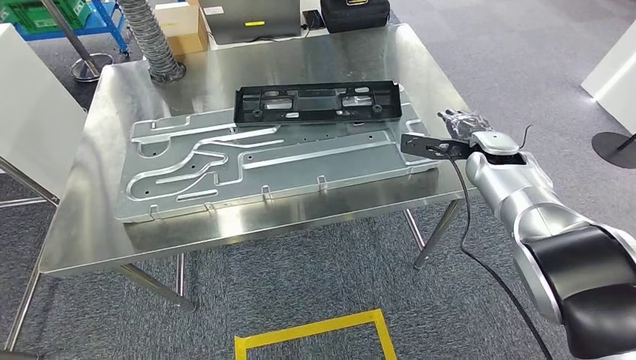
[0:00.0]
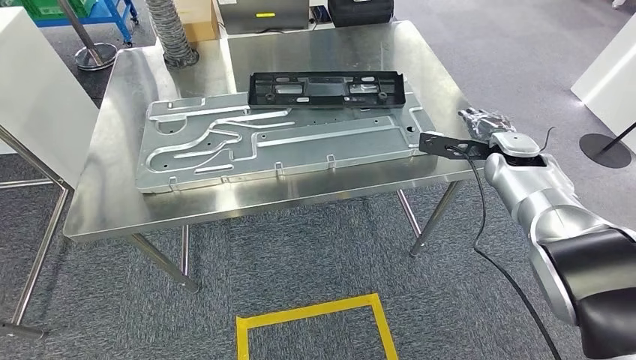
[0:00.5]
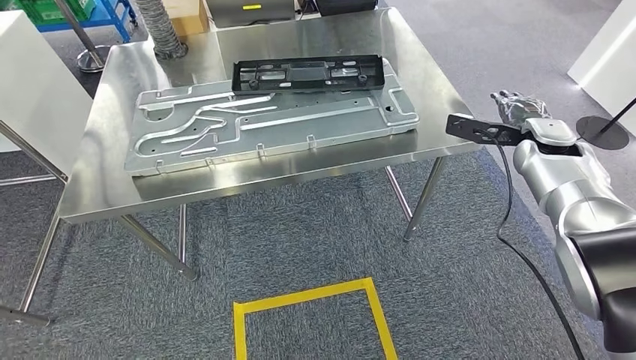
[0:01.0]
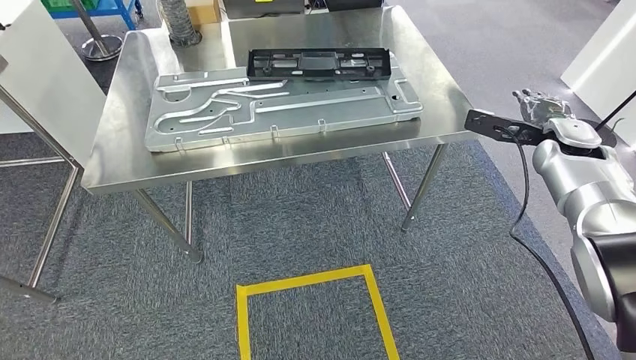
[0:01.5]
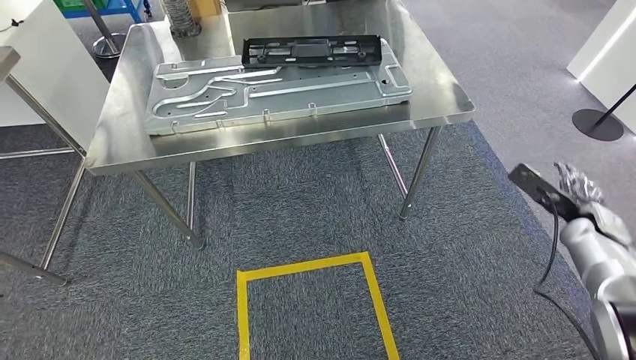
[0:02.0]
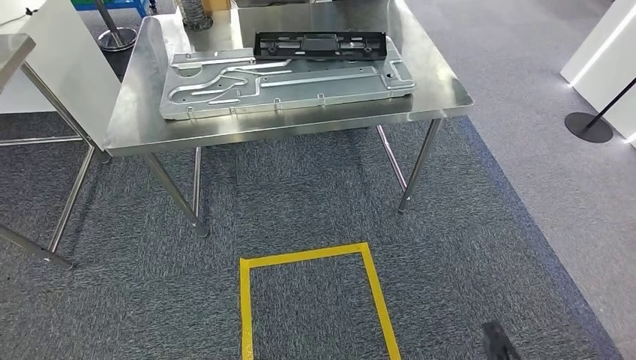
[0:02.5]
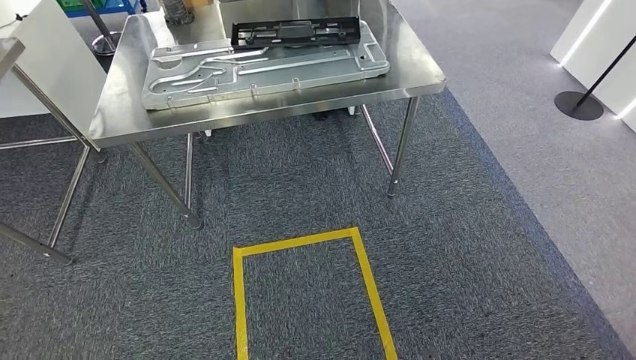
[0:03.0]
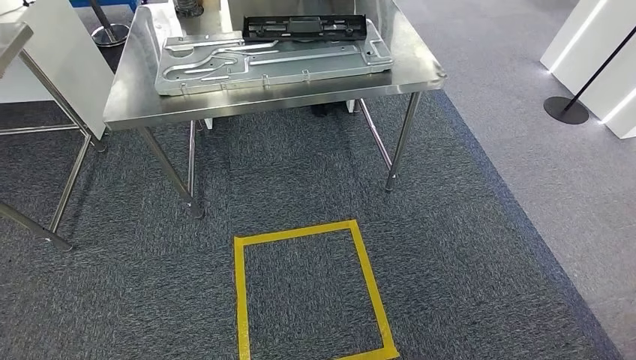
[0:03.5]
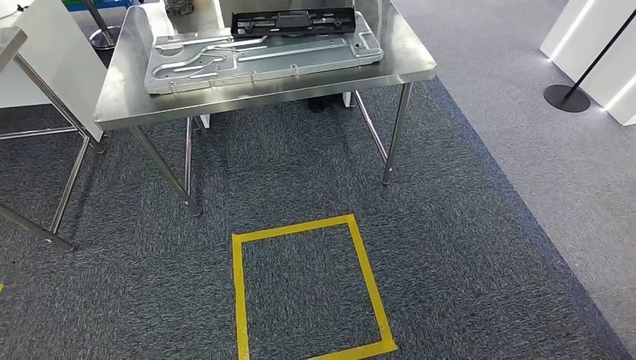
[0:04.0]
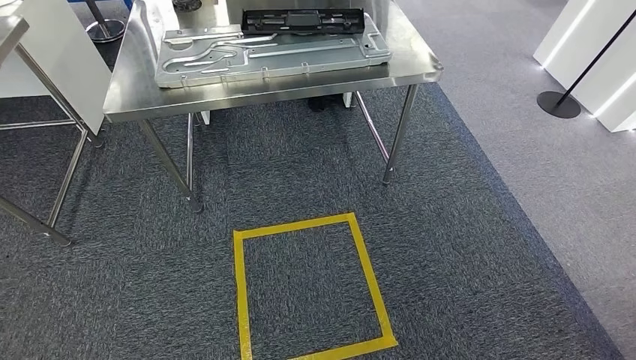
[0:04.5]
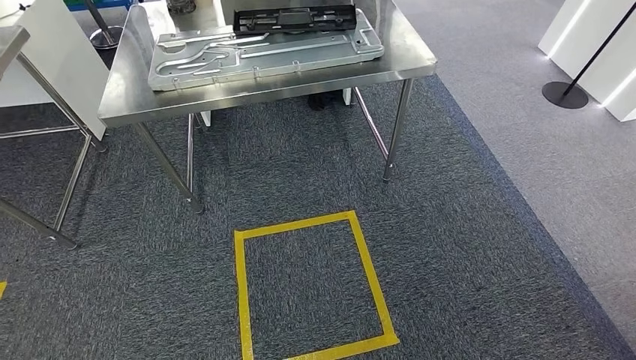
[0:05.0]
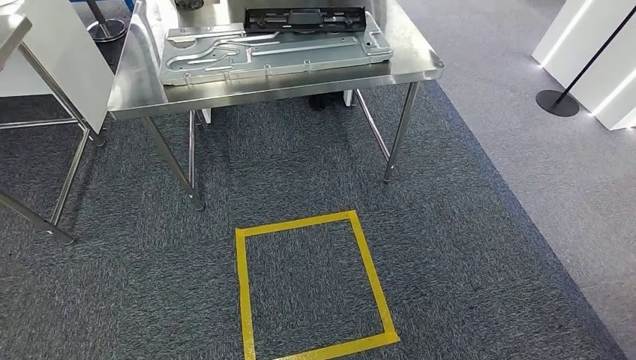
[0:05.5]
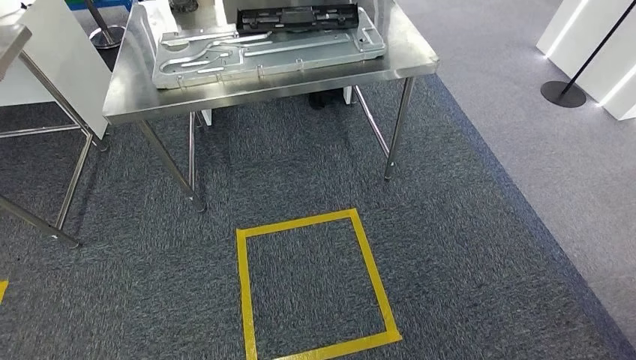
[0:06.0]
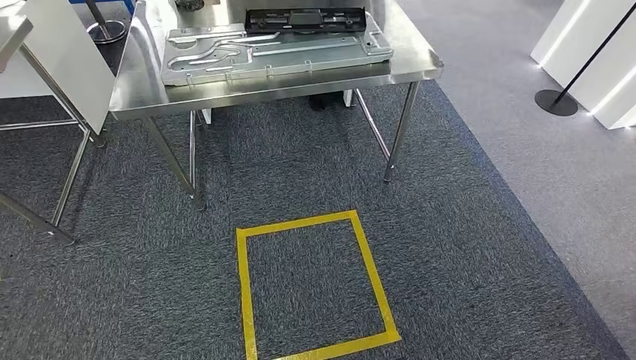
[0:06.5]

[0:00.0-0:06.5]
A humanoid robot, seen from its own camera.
Step, 0:00.0 to 0:06.0: Move to the initial position of the shelf.
0:04.5 to 0:06.5: The hands stay close to where they were, moving slightly.

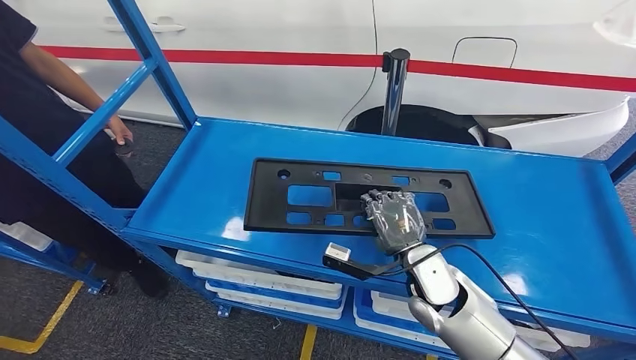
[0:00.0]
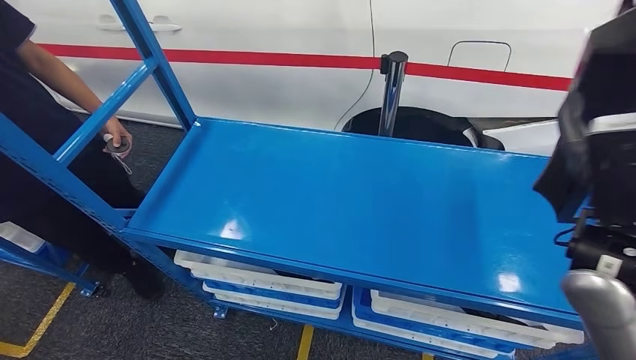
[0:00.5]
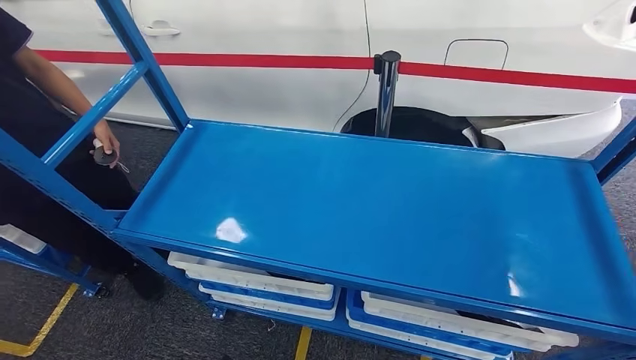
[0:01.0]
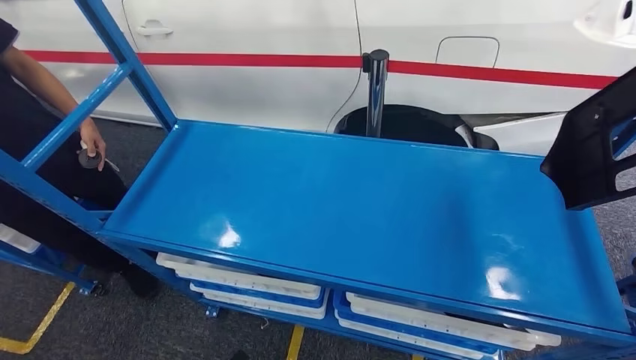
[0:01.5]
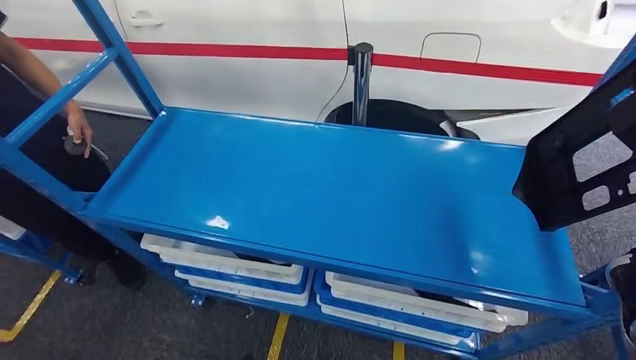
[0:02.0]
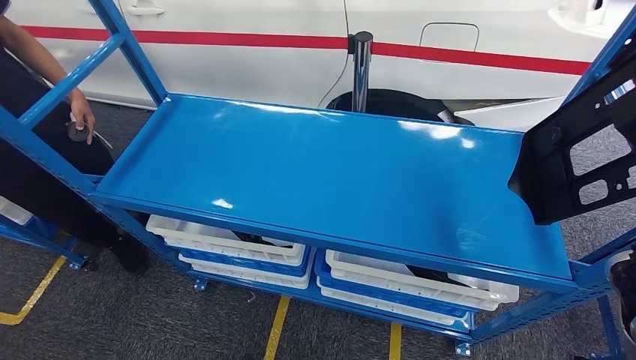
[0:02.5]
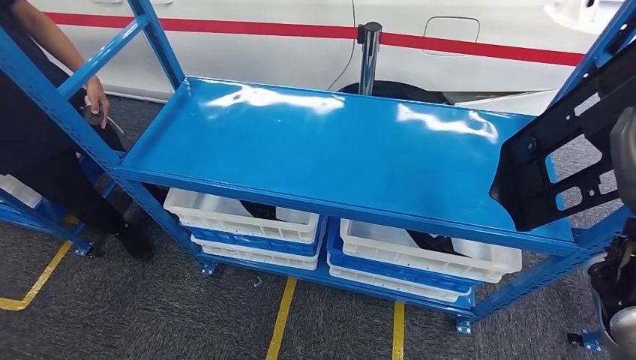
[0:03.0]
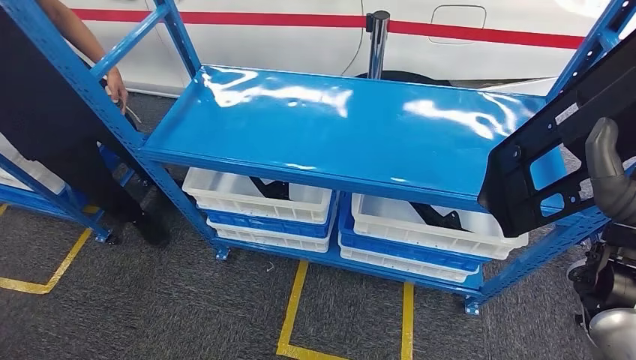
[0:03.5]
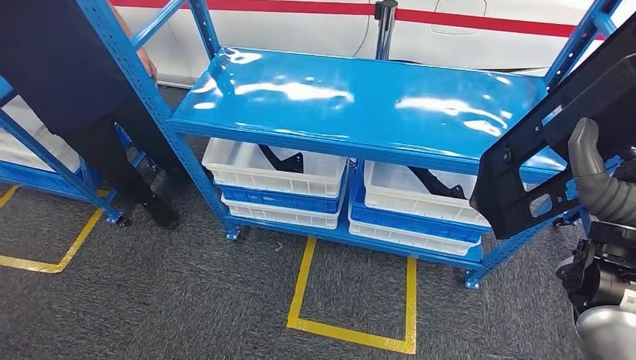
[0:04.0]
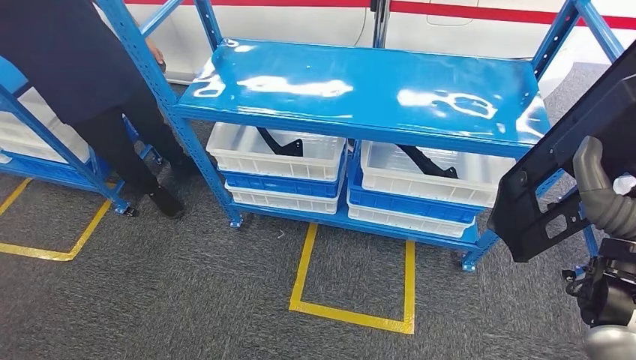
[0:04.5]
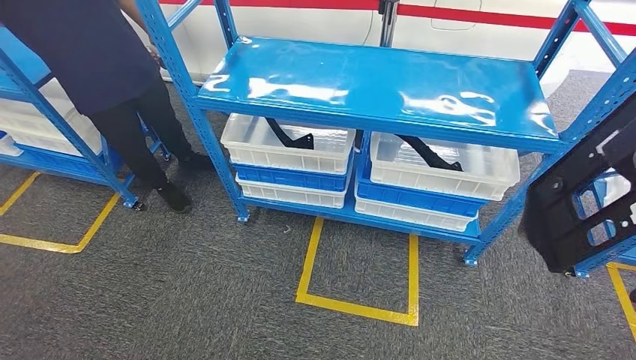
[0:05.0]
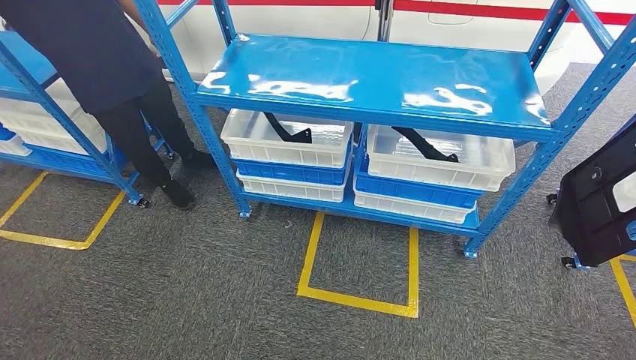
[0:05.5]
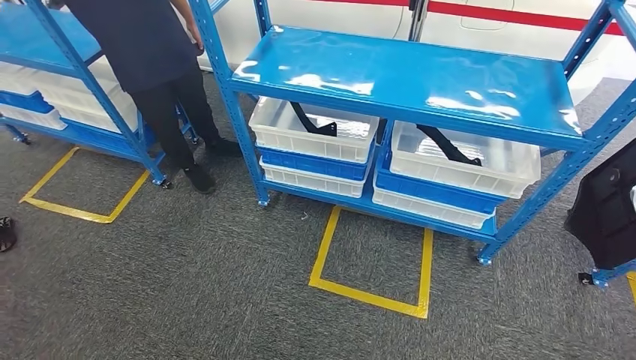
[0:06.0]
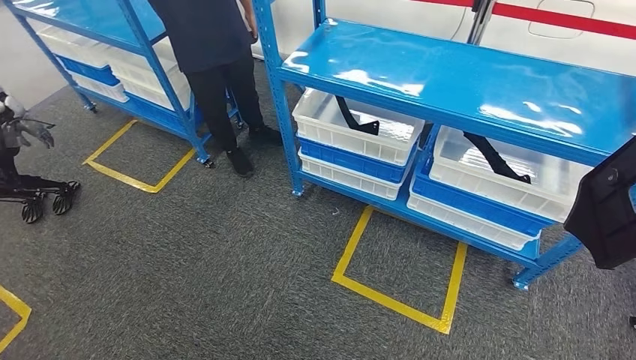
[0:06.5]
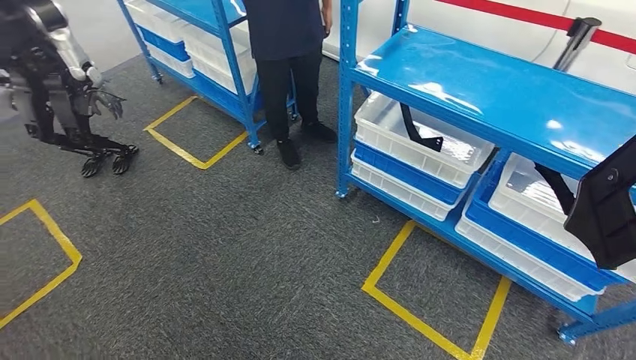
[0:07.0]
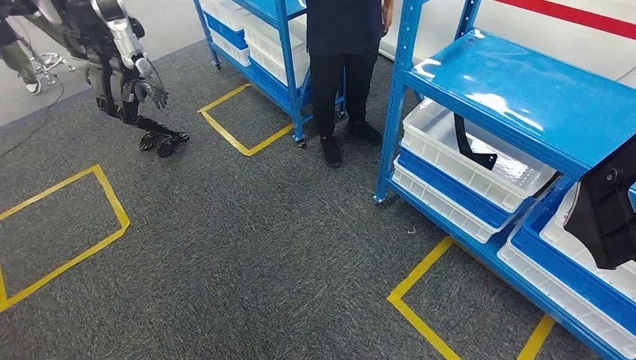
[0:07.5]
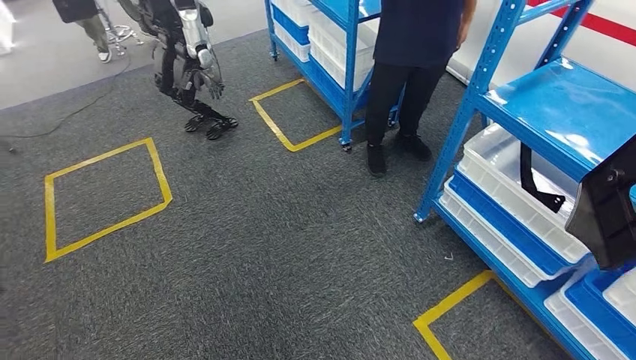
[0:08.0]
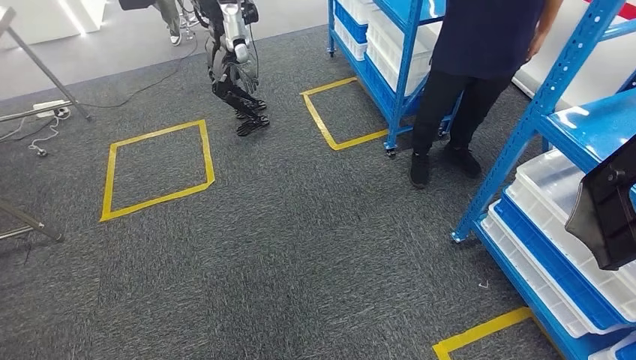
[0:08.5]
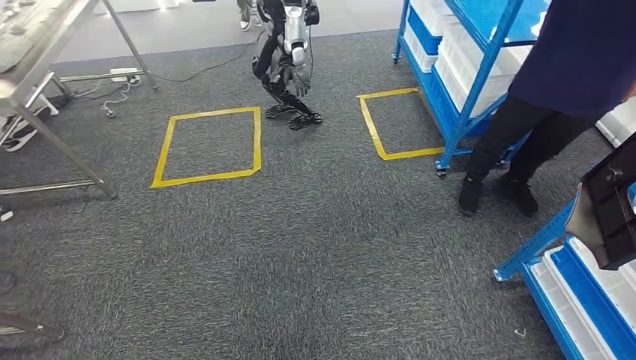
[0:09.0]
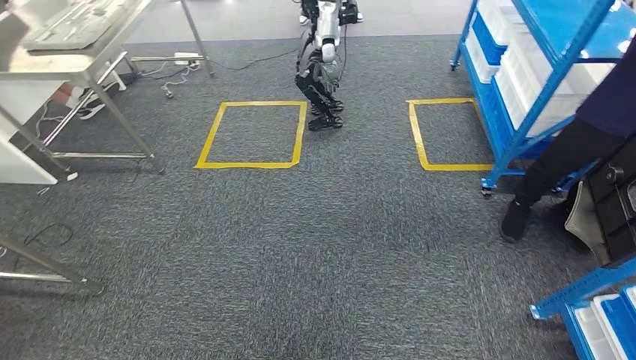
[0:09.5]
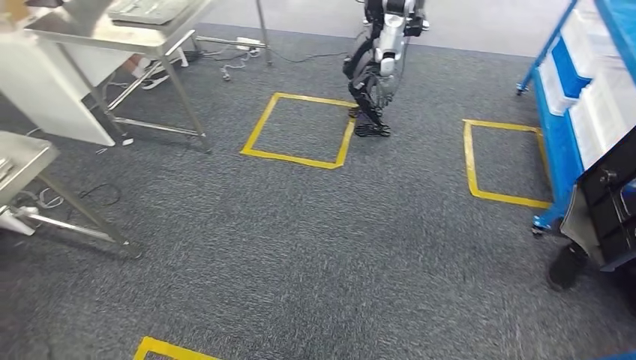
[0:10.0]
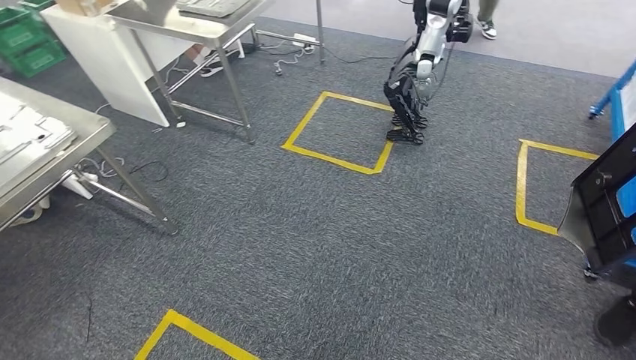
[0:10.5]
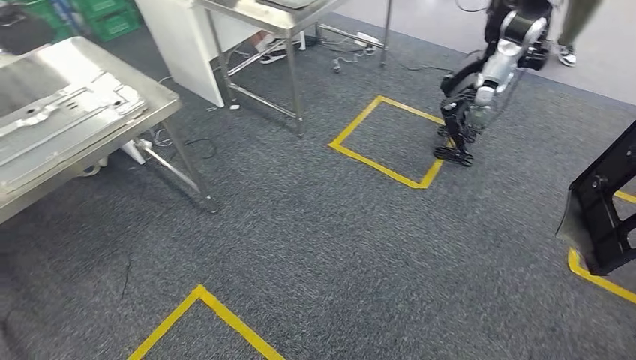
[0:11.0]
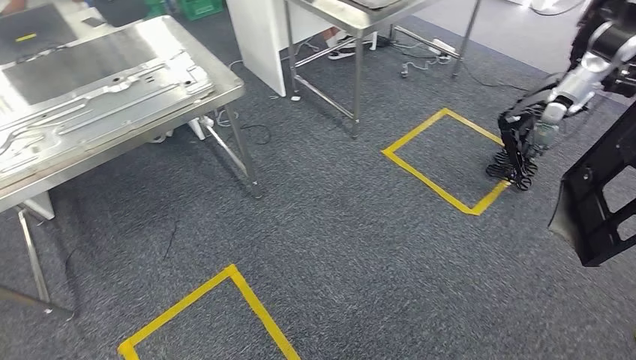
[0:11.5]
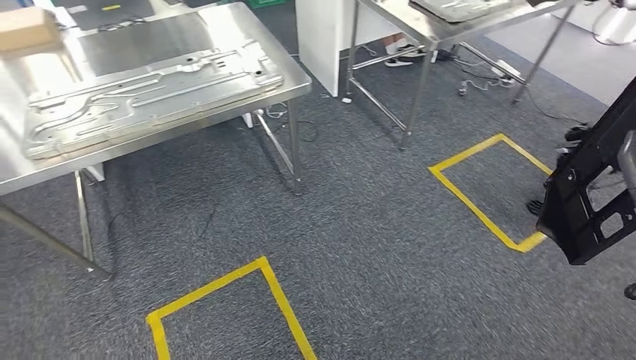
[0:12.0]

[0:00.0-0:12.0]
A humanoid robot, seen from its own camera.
Step, 0:00.0 to 0:02.5: Pick up the large material from the shelf.

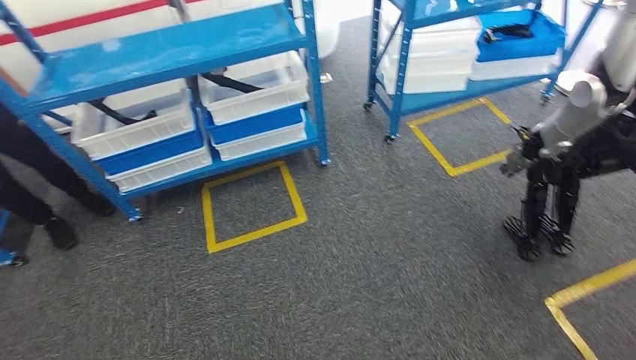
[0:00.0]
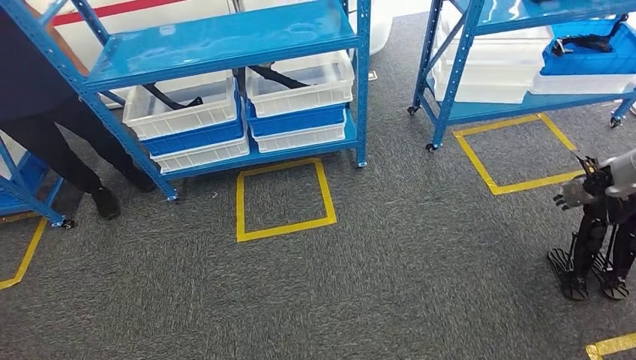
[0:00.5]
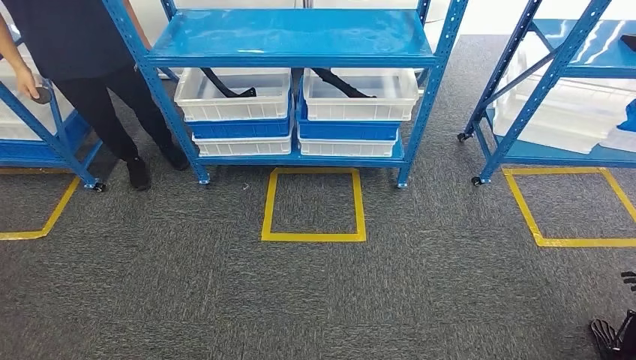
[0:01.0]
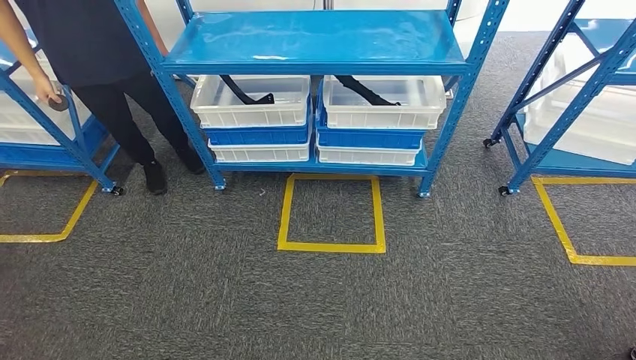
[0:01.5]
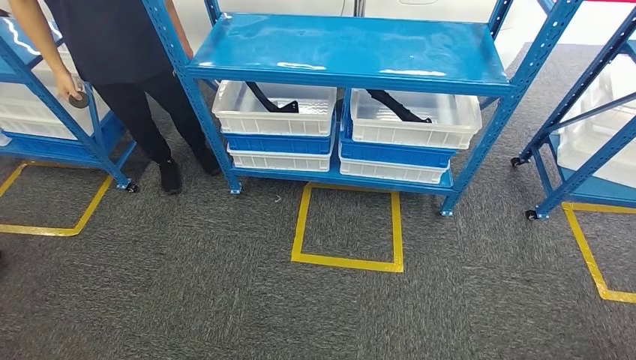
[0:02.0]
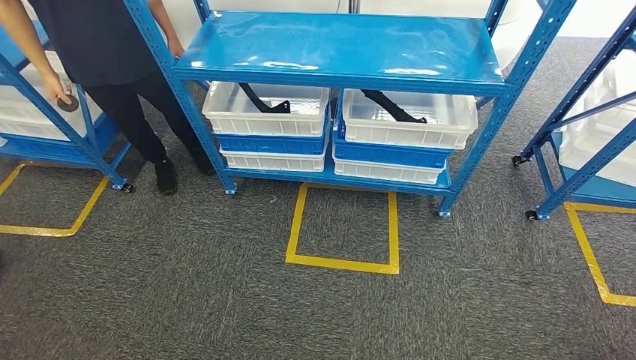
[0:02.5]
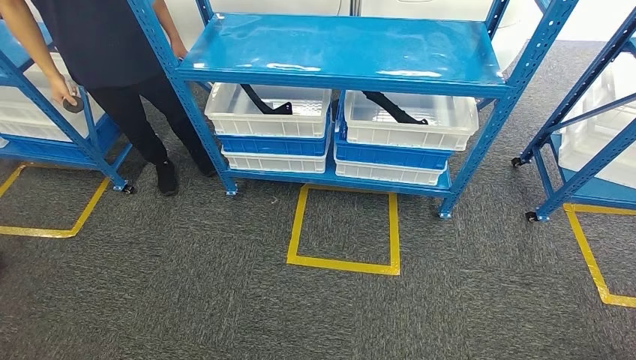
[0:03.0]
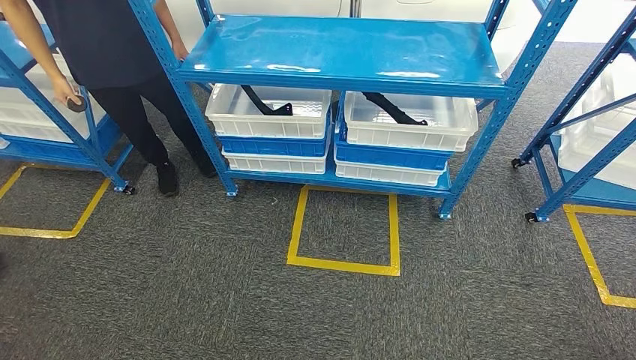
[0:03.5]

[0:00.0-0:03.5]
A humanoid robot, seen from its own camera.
Step, 0:00.0 to 0:03.5: Move to the initial position of the shelf.
0:02.0 to 0:03.5: The hands stay close to where they were, moving slightly.
